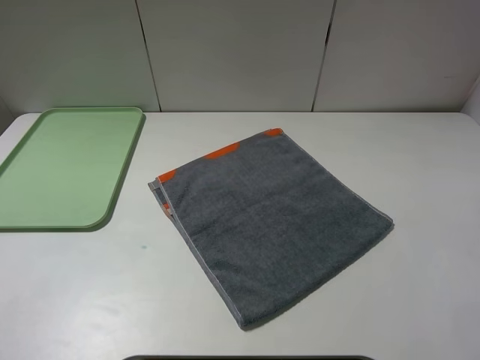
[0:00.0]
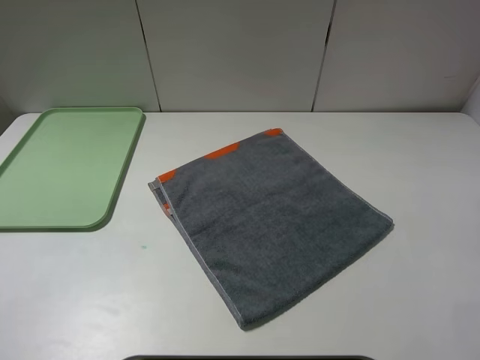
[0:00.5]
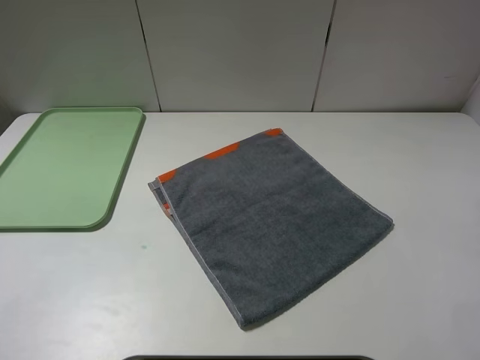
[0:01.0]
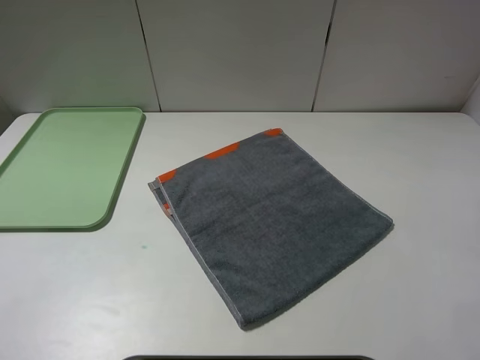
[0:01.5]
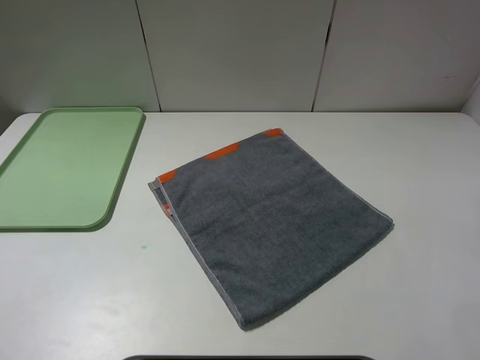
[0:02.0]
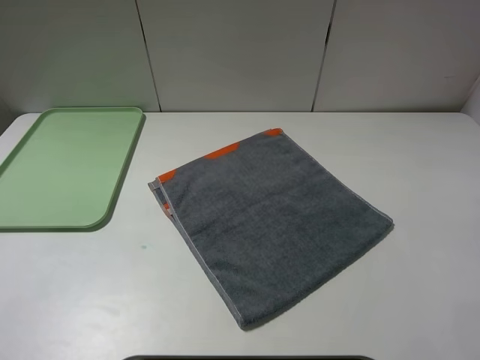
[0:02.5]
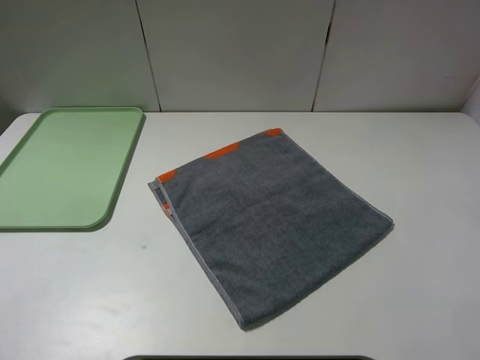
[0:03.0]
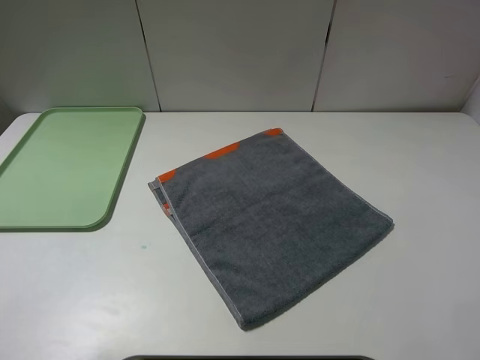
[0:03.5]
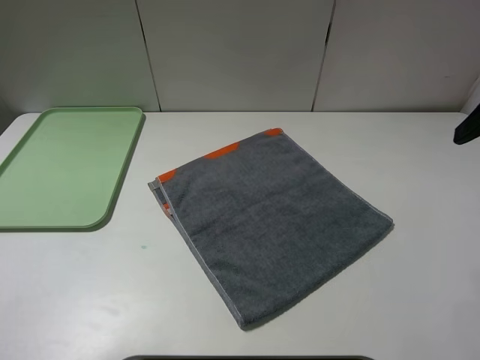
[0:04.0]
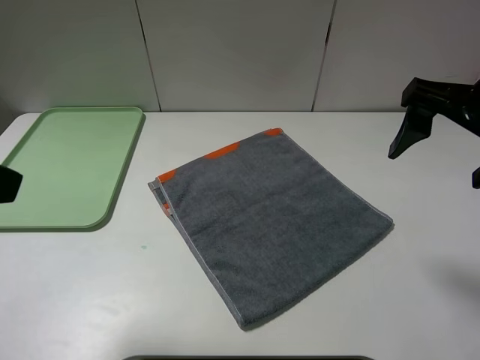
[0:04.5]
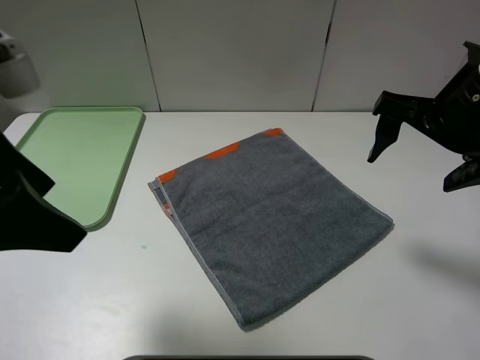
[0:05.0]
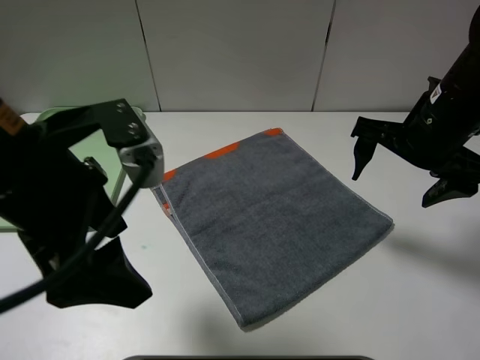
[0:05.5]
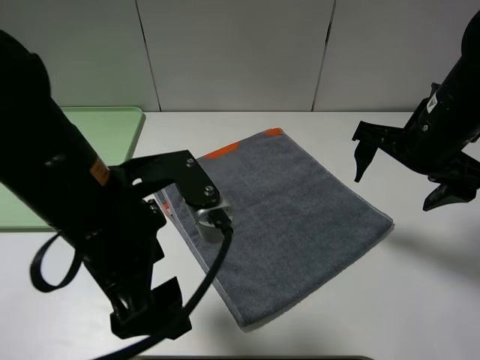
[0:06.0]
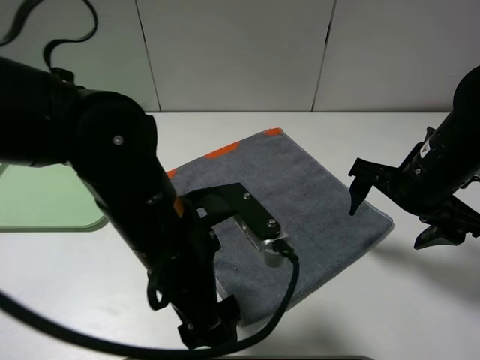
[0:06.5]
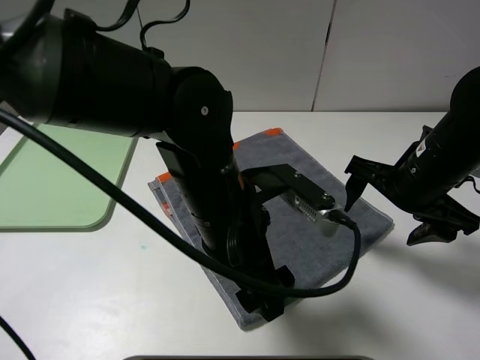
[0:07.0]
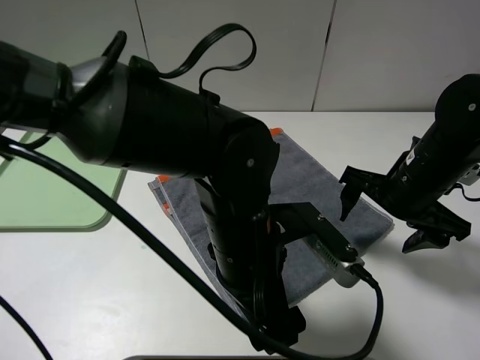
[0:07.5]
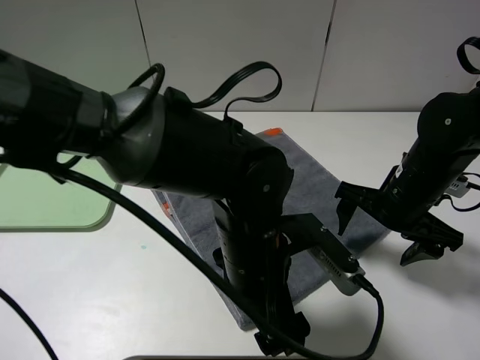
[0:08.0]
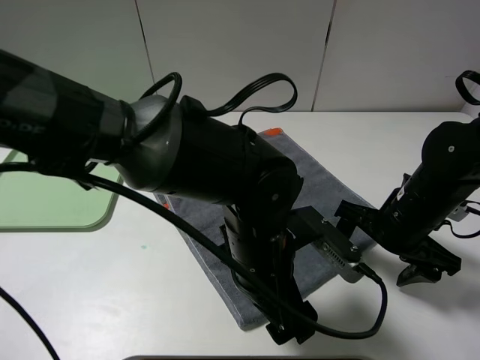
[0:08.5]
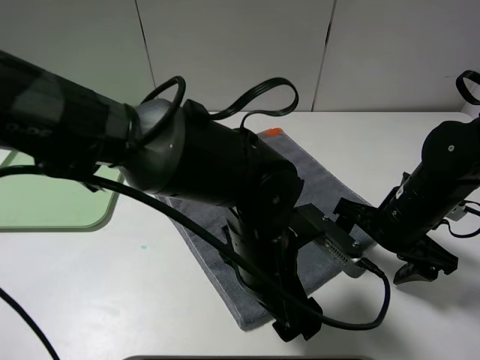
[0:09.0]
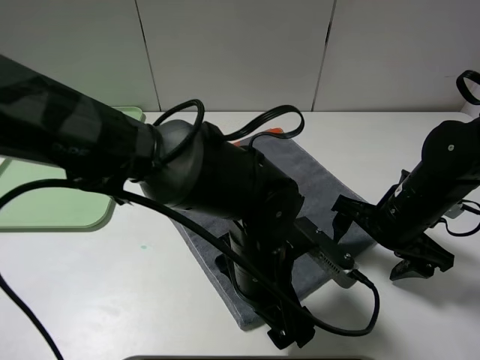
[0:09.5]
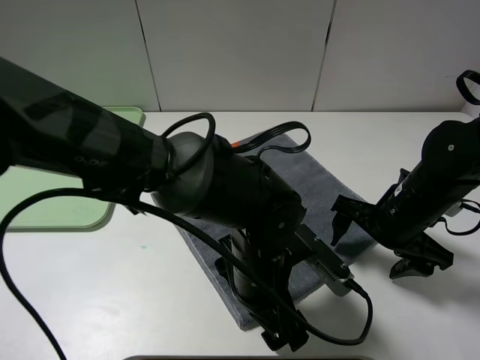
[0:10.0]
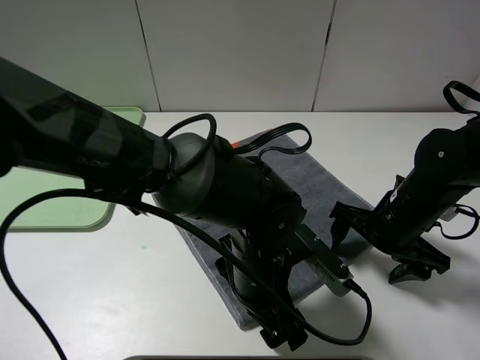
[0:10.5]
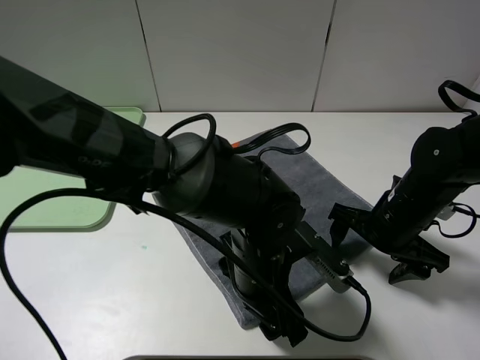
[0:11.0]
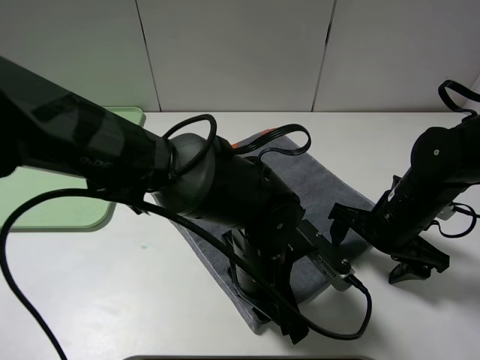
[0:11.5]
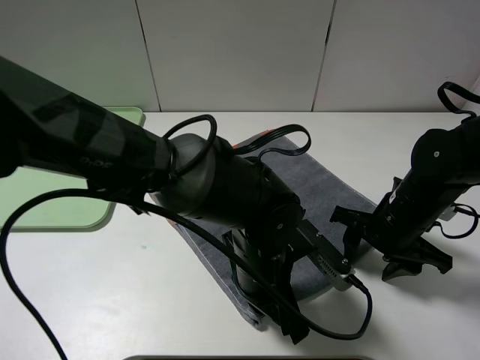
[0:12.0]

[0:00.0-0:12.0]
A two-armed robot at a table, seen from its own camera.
0:00.0 to 0:02.0: Both grippers stay about where they are.
0:04.0 to 0:06.0: The right gripper is displaced downward, forward and to the left by about 15 cm, while the left gripper shifts approximately 20 cm to the right, downward and forward.
0:06.0 to 0:08.0: The right gripper goes some 10 cm downward; the left gripper moves to the right and downward, approximately 15 cm.
0:10.0 to 0:12.0: The left gripper closes, while the right gripper closes up.

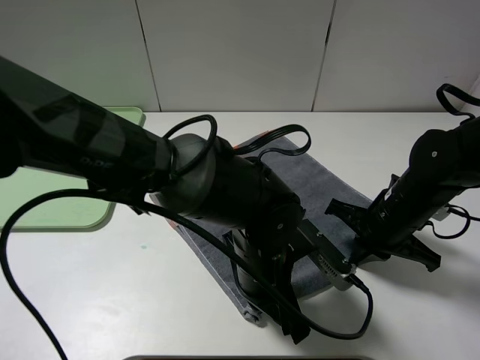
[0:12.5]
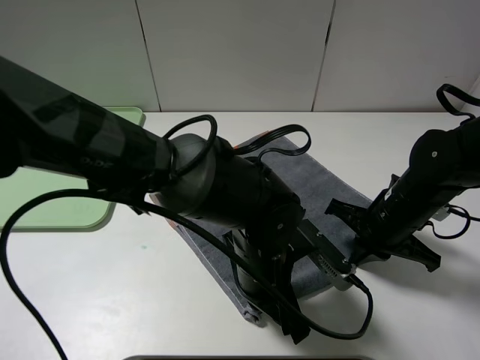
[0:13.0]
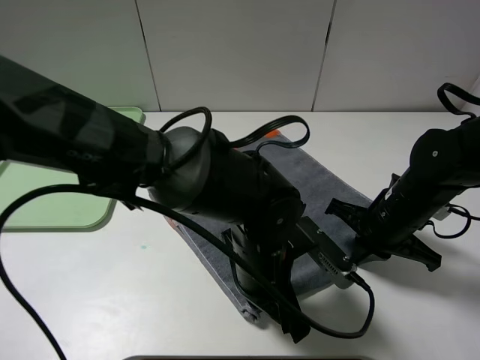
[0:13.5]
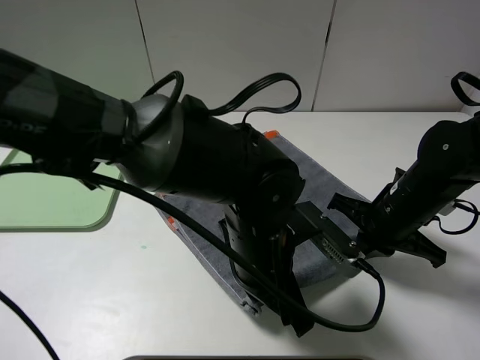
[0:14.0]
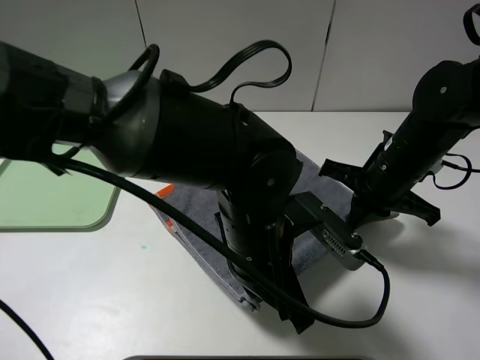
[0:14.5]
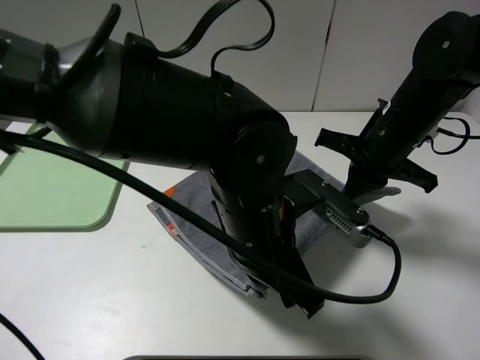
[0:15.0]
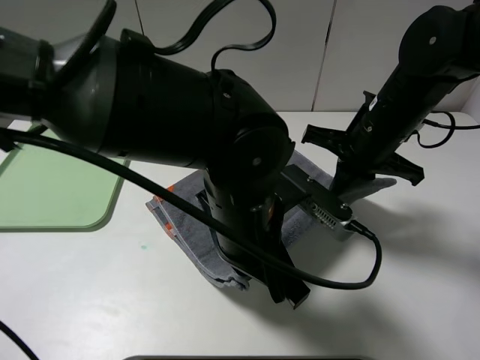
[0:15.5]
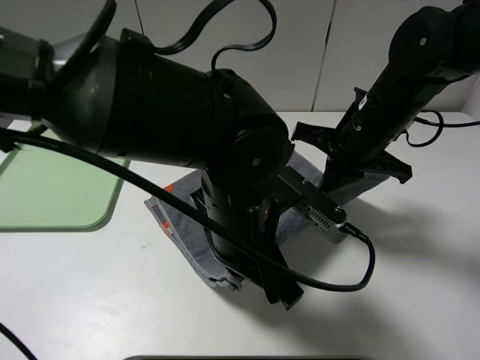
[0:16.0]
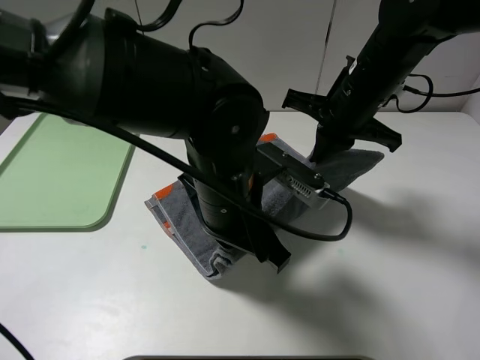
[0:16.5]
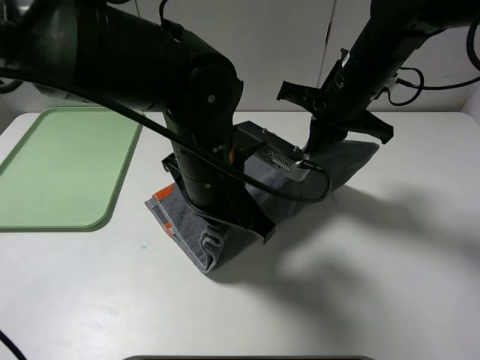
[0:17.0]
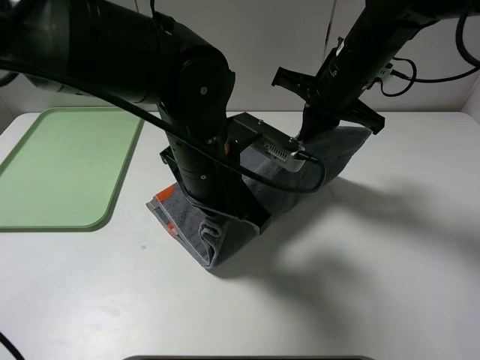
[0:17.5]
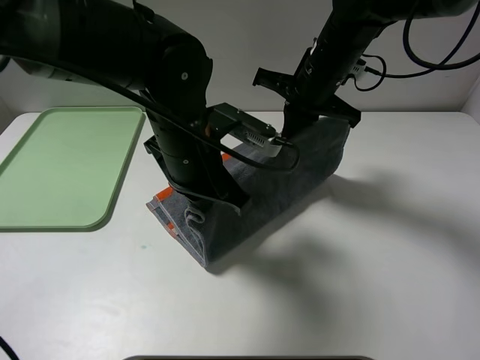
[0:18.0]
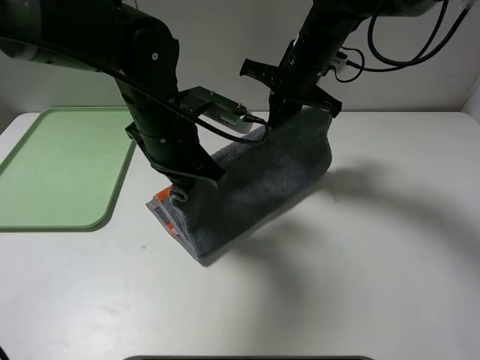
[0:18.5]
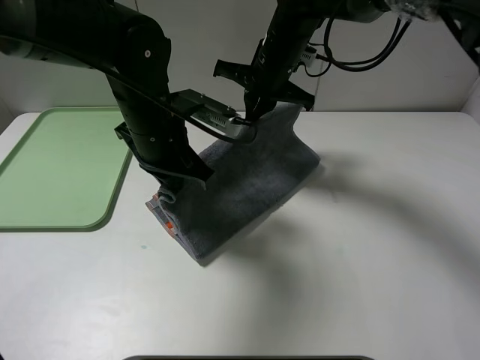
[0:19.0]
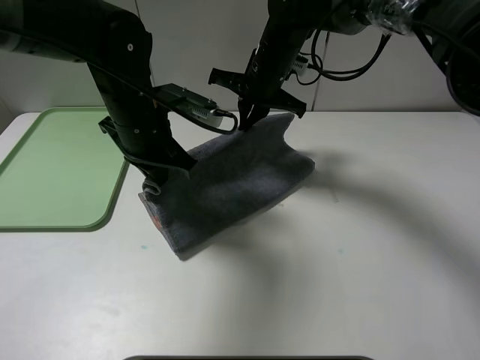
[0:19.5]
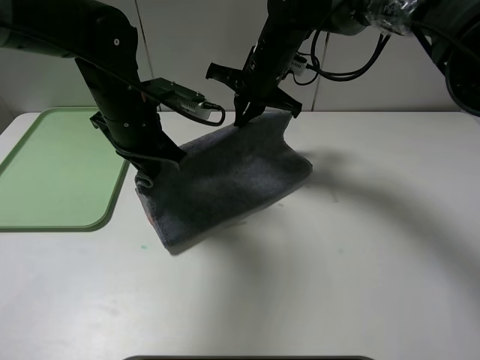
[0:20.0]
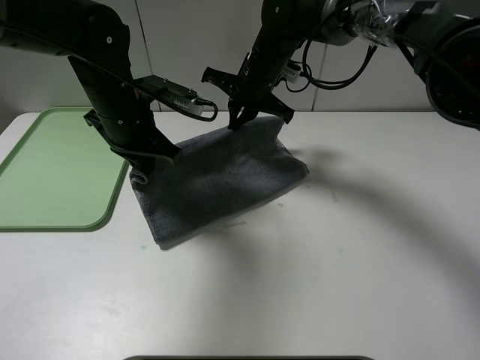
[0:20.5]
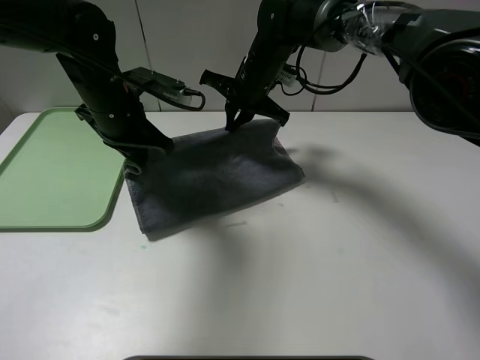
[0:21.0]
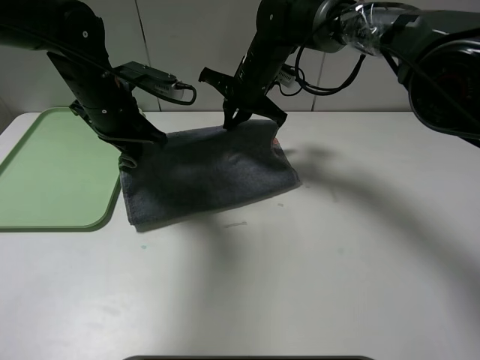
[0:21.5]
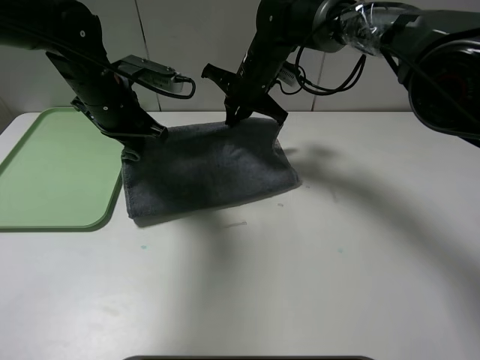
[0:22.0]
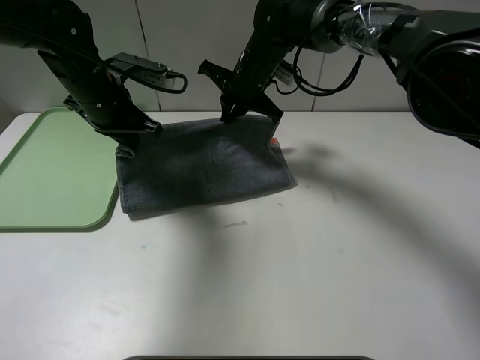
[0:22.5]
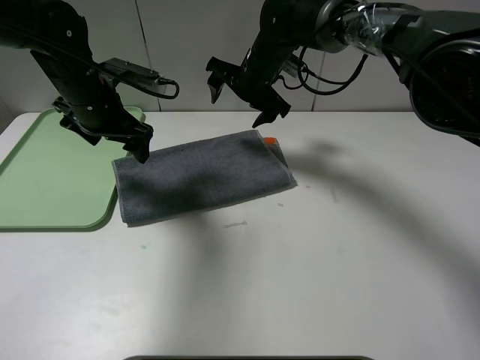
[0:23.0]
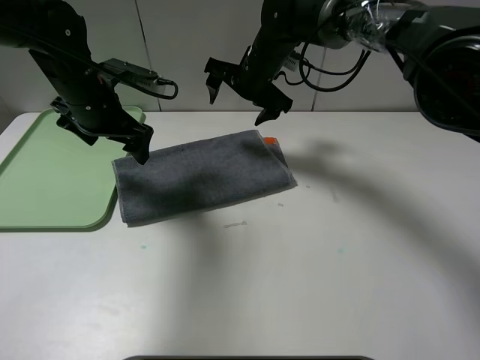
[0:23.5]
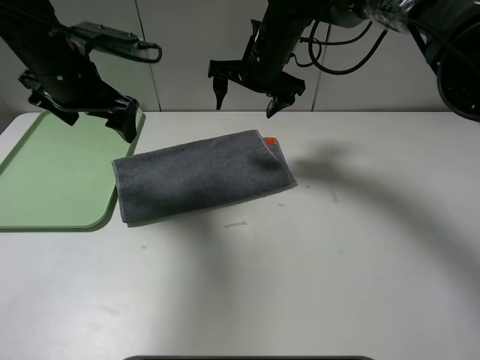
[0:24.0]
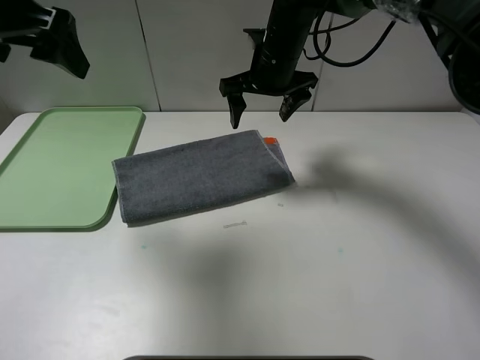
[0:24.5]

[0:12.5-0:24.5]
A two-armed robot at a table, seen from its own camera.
Step, 0:12.5 to 0:23.0: Fold the grey towel upwards.
0:12.5 to 0:14.5: Both grippers travel together upward, roughly 5 cm.
0:14.5 to 0:16.5: The left gripper changes place by about 5 cm, while the right gripper shifts about 10 cm upward, forward and to the left.
0:16.5 to 0:18.5: Both grippers travel together forward and to the left, approximately 10 cm.
0:18.5 to 0:20.5: Both grippers move to the left, about 5 cm.
0:20.5 to 0:22.5: The left gripper shifts by some 5 cm.
0:22.5 to 0:24.5: The right gripper ends up approximately 5 cm from where it was, and opens; the left gripper goes roughly 20 cm upward and backward, and opens.

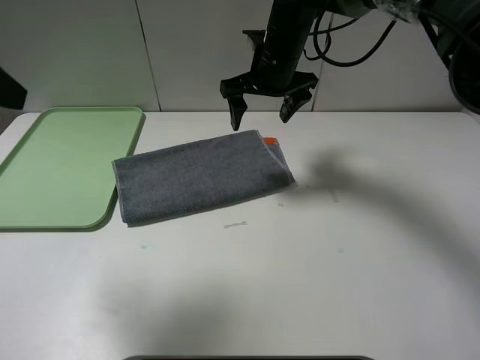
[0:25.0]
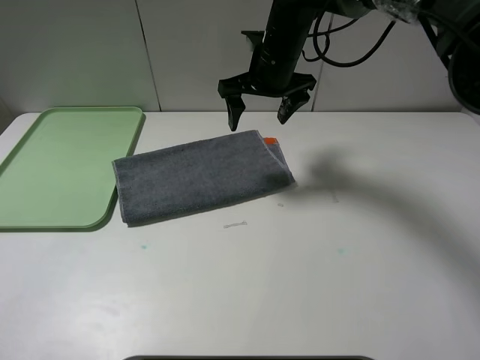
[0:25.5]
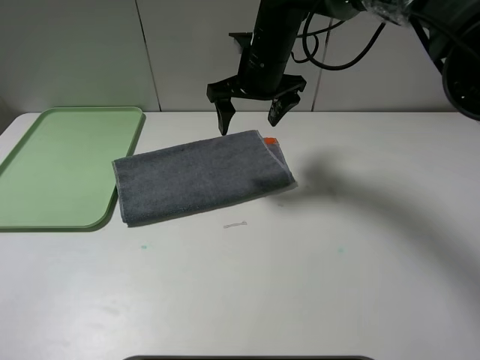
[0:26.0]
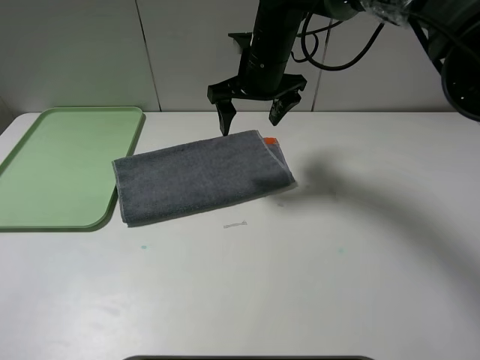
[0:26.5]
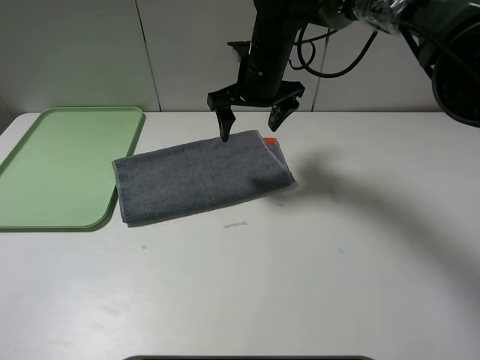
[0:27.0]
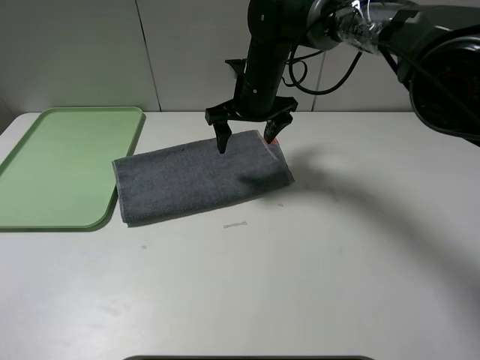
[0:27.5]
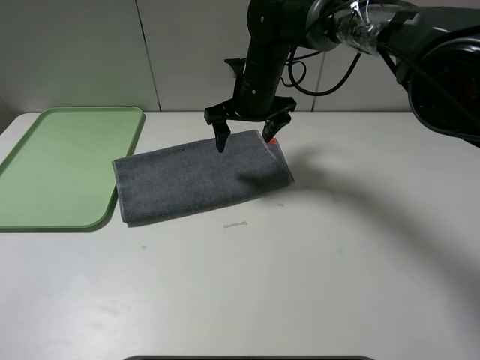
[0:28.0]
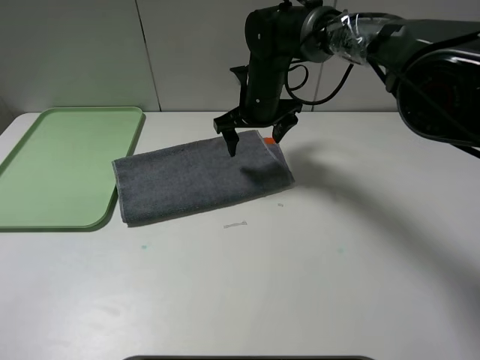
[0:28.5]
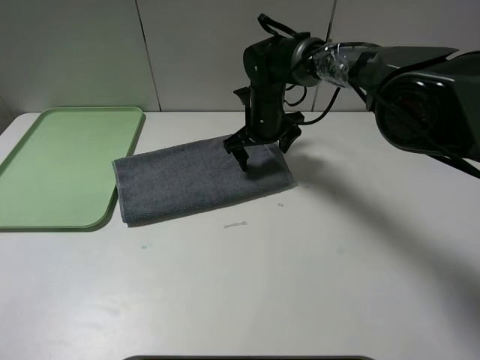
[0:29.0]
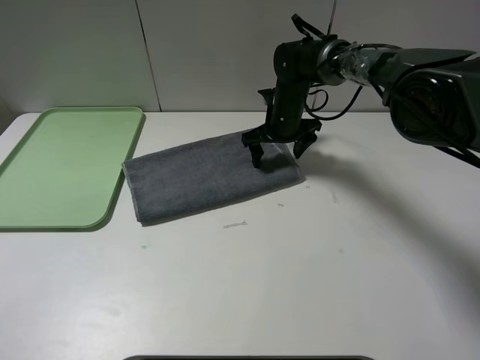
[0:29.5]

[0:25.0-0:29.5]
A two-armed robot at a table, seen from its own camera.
0:25.0 to 0:27.0: The left gripper travels backward and downward by some 20 cm.
0:27.0 to 0:29.5: The right gripper travels downward, to the right and forward by roughly 15 cm.
